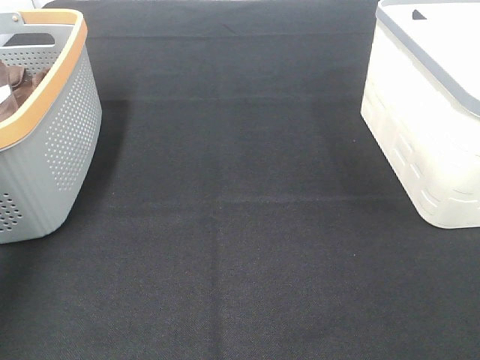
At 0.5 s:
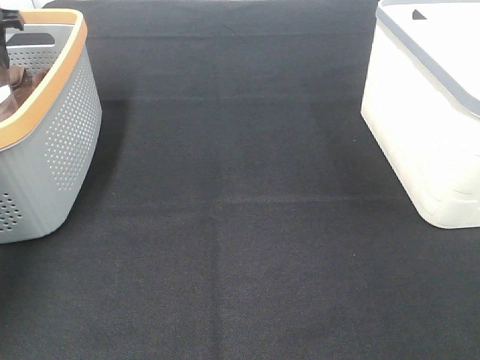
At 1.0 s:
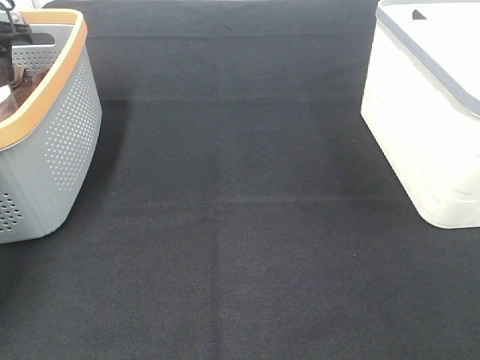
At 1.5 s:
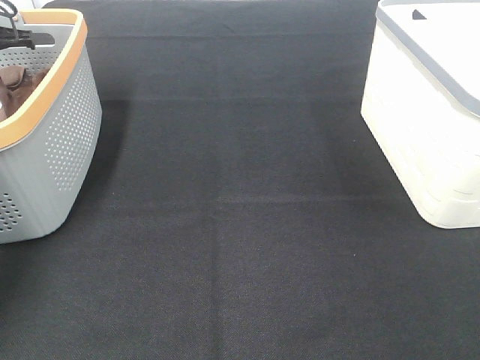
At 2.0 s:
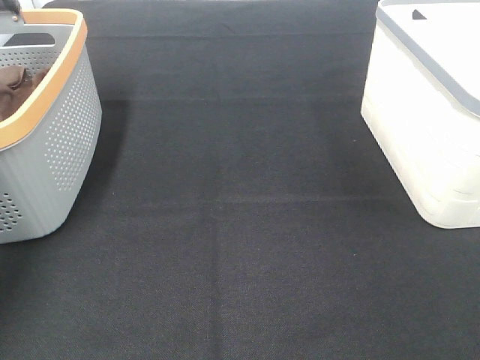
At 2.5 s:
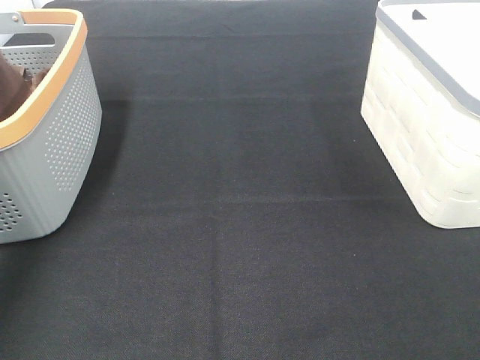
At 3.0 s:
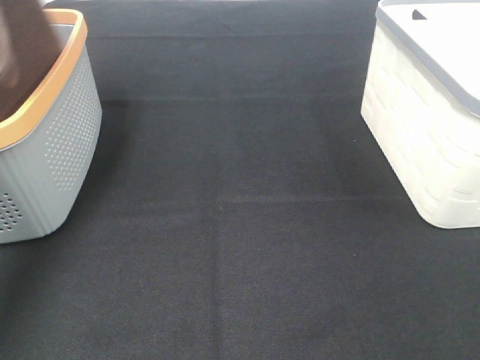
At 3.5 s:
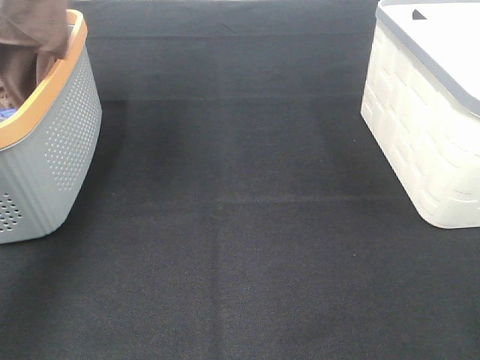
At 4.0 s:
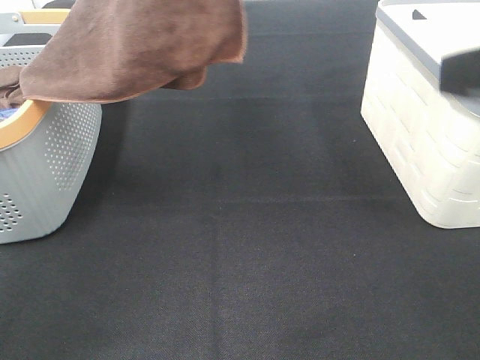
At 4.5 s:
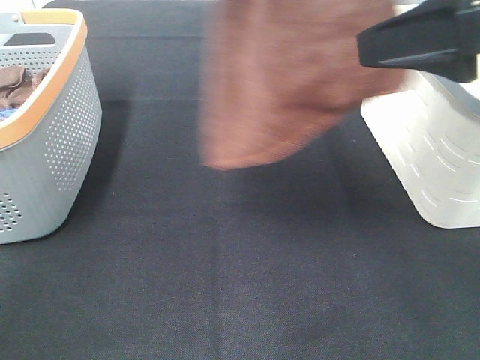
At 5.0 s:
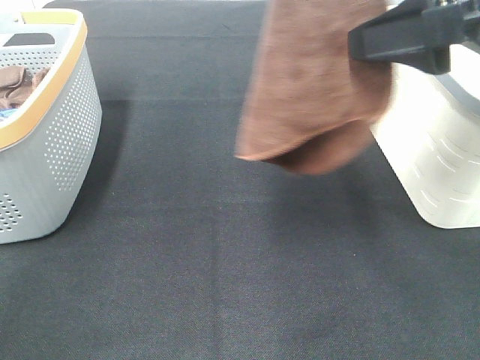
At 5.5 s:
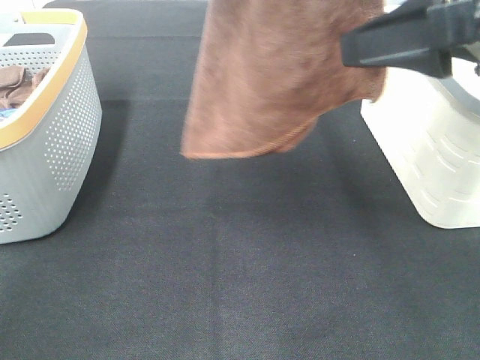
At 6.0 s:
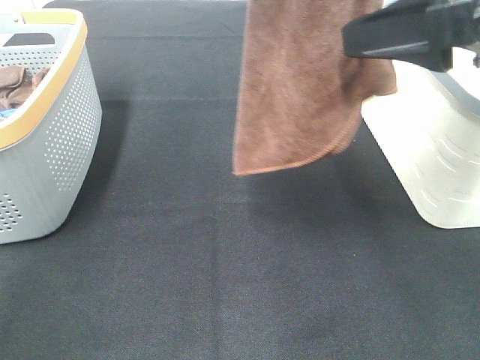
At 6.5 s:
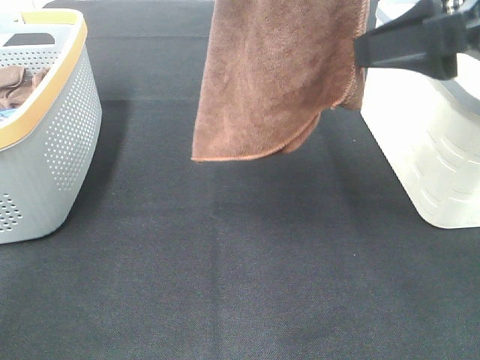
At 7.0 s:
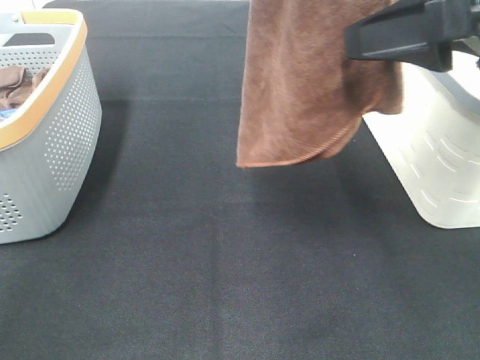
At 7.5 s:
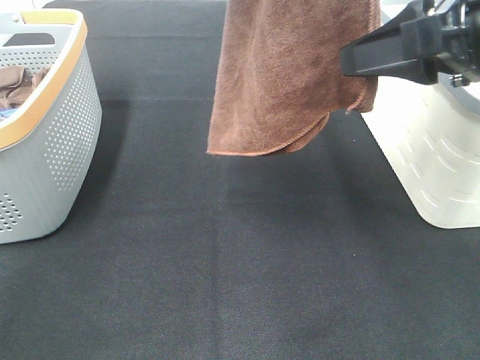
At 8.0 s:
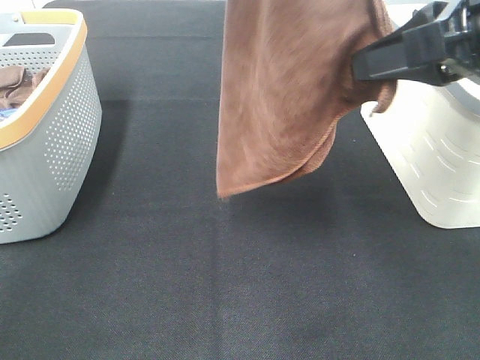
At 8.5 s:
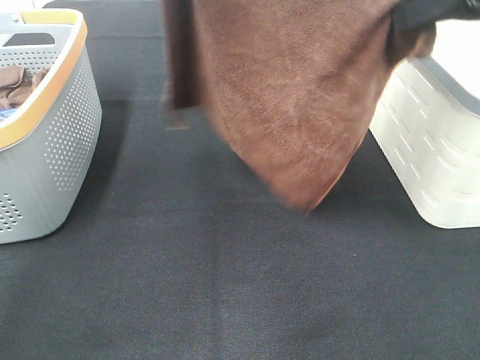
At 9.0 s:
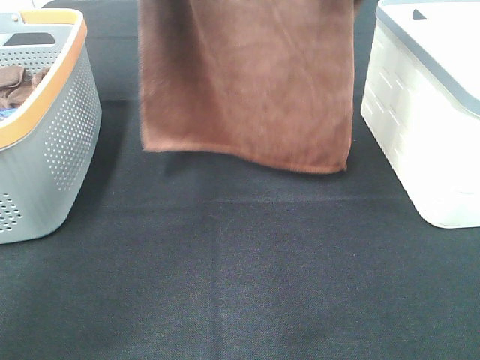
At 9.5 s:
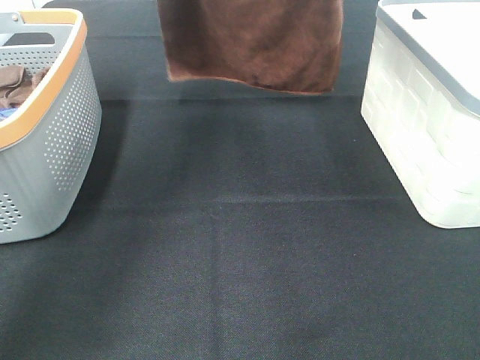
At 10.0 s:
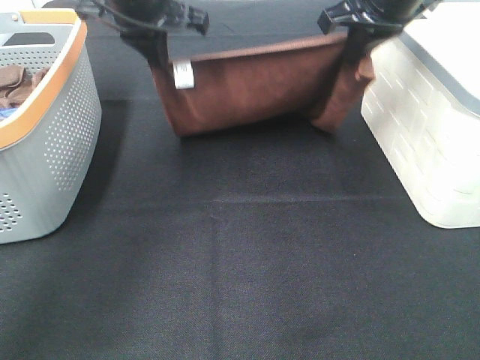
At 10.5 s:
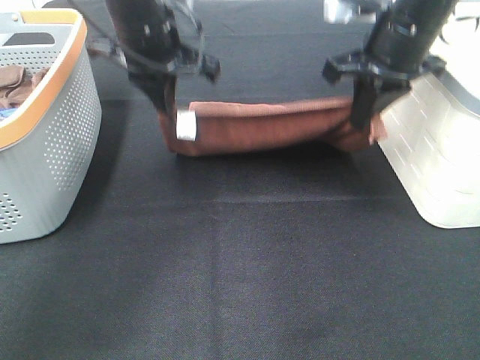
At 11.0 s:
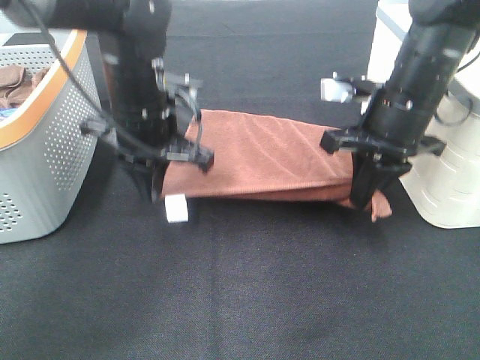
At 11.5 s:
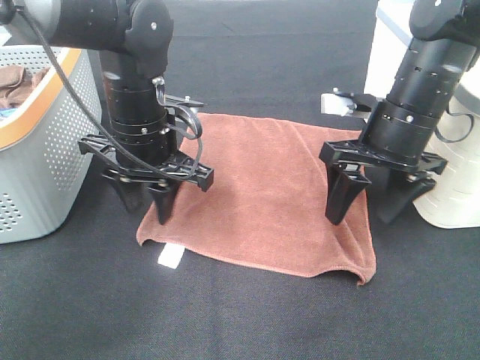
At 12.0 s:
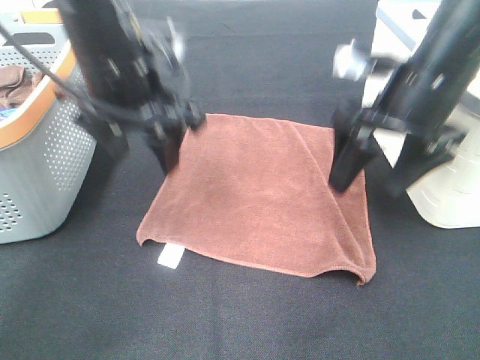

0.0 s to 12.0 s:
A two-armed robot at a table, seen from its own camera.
Task of the whole recording: Remove the towel and place it.
Step, 3.0 to 5.5 s: Right hand: grab a corner of the brown towel and straighten it.
Step, 6.0 to 8.0 s: Left hand: spread the brown towel flat on the table.
Step, 6.0 to 8.0 s: Right hand: spread the brown towel flat on the table.
0.0 to 2.0 s: The left gripper goes about 5 cm forward, reaches roughly 10 cm downward, then returns, and closes its fingers.
2.0 to 4.0 s: The left gripper moves upward, to the right and backward, some 35 cm. Meanwhile the right gripper travels forward, upward and to the left by roughly 15 cm.
4.0 to 6.0 s: The right gripper goes roughly 10 cm forward. Meanwhile the left gripper shifts roughly 5 cm to the right.
6.0 to 8.0 s: The right gripper closes.
8.0 to 10.0 s: The left gripper is displaced downward and forward by approximately 30 cm; the right gripper is displaced forward by about 20 cm.
10.0 to 12.0 s: The right gripper is displaced backward and downward by approximately 10 cm, and opens. The left gripper moves backward, approximately 10 cm, and opens.

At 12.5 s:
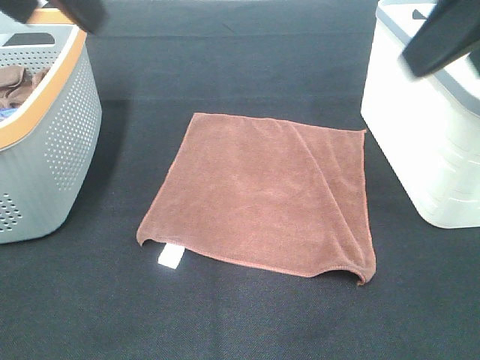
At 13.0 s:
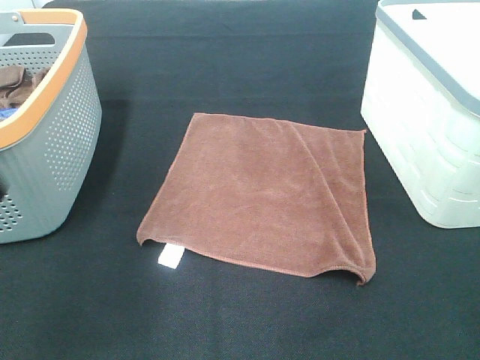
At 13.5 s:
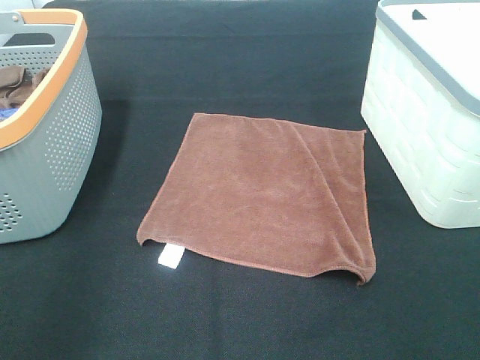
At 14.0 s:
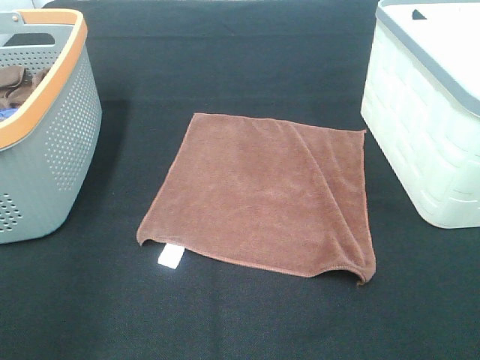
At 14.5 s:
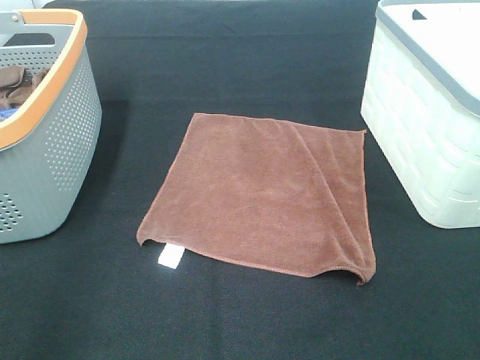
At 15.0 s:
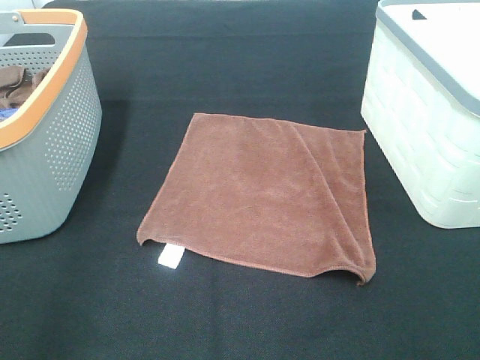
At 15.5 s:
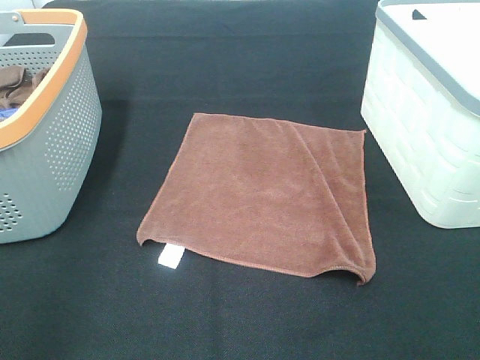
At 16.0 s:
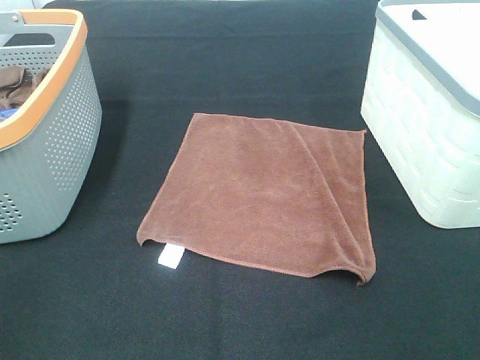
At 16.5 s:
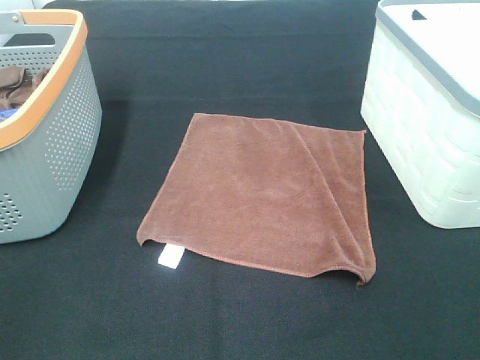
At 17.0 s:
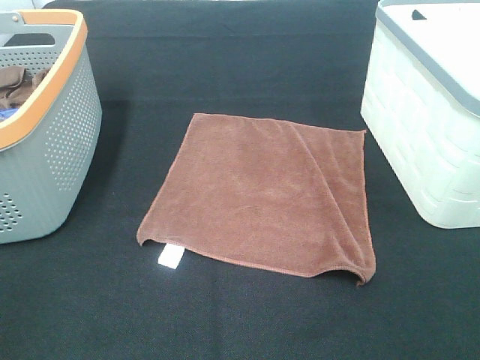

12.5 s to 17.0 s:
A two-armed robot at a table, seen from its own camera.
Task of the whole recording: Remove the towel and place it.
12.5 to 14.5 s: The right gripper goes approximately 20 cm backward, downward and to the right. Meanwhile the left gripper shifts about 25 cm backward, downward and to the left.

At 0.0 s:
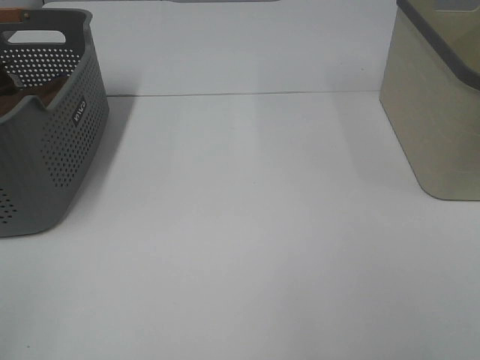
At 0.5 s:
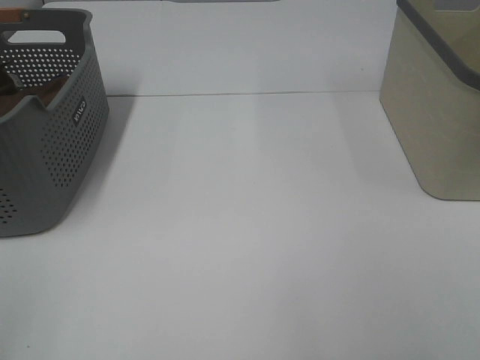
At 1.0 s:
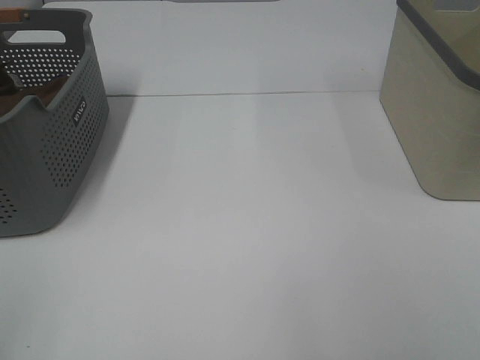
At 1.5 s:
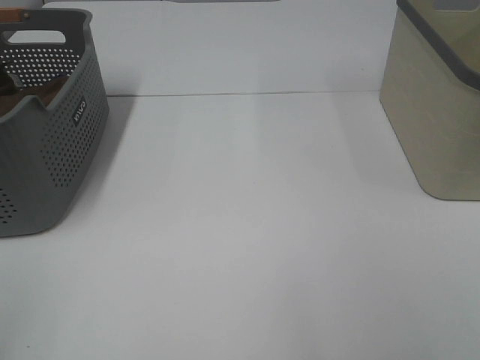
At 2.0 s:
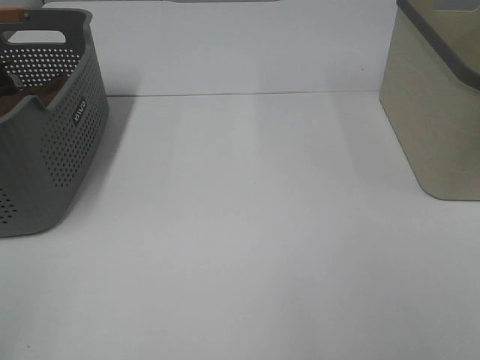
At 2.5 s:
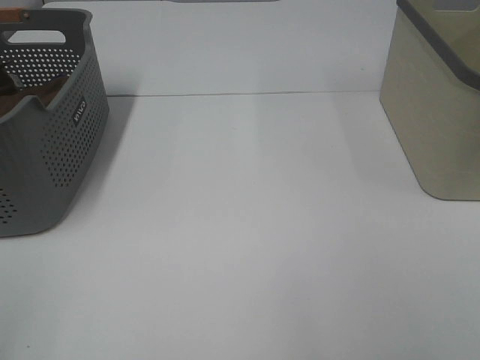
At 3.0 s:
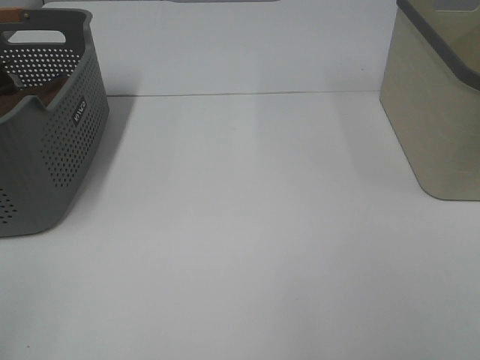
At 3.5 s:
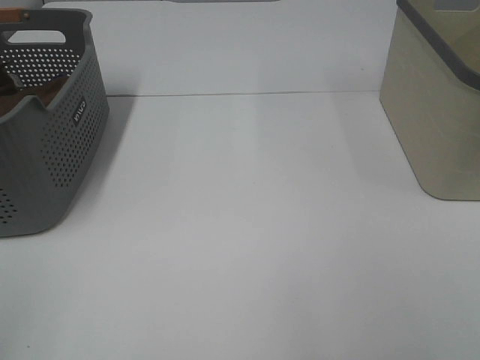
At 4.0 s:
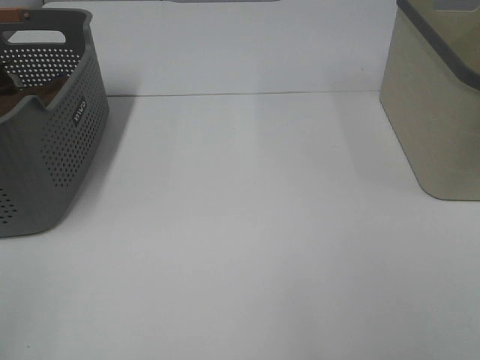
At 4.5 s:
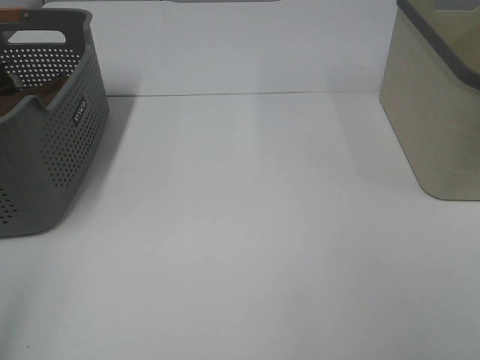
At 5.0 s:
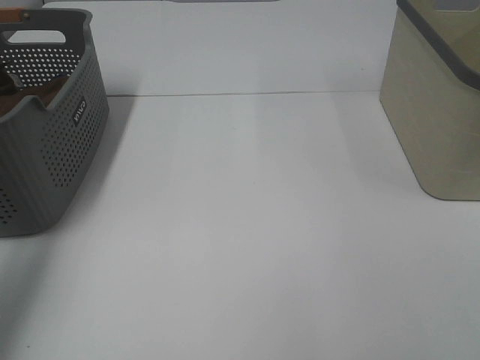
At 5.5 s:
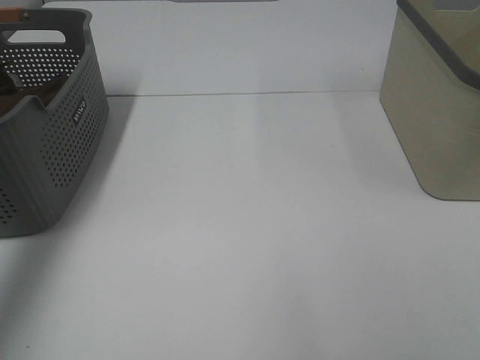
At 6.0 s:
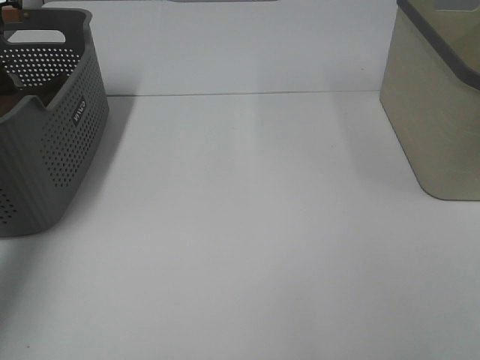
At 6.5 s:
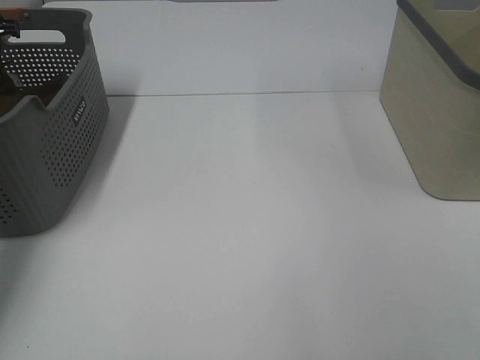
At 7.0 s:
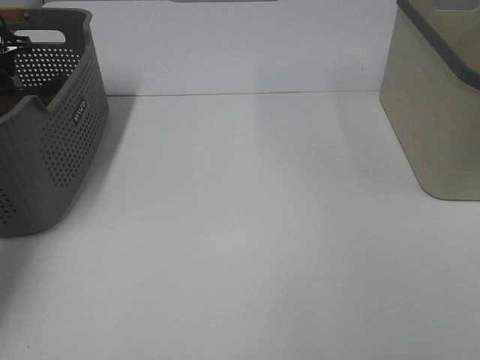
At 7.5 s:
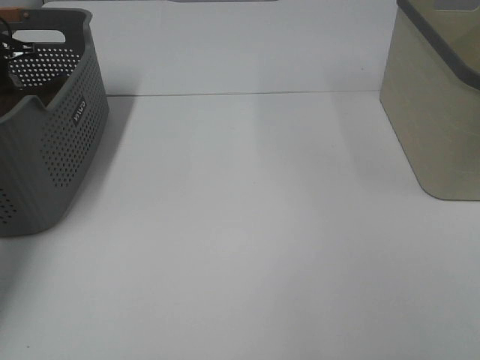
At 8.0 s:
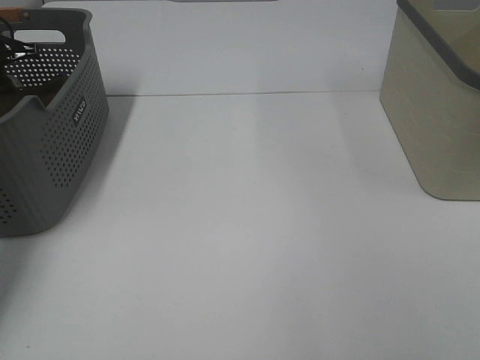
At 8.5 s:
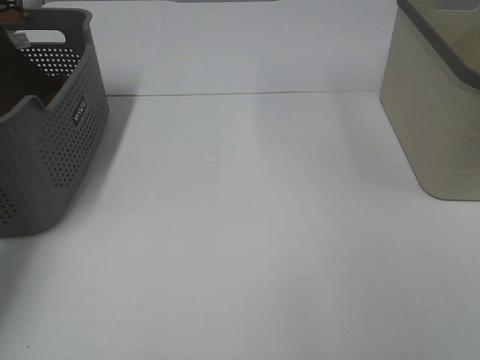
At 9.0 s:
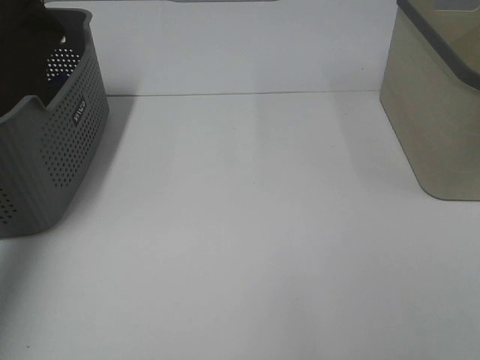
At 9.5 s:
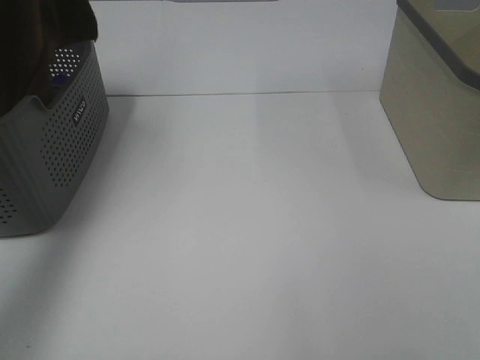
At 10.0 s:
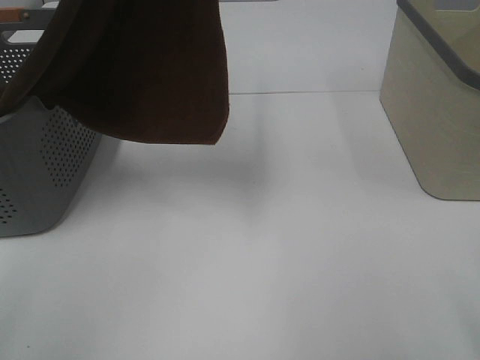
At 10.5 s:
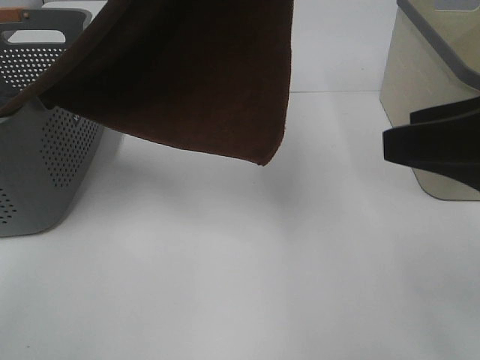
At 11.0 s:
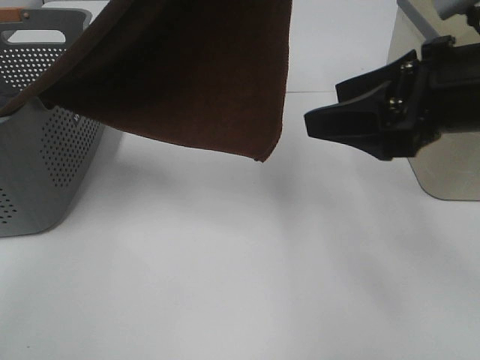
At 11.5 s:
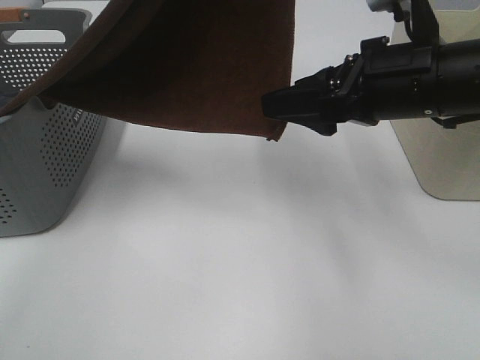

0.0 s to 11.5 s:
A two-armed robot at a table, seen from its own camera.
Task of the whole recording: Remove the towel and place it.
0.0 to 4.0 s: The two grippers keep their place.
4.0 to 6.0 s: The left gripper shifts about 50 cm forward.
7.5 to 9.5 s: The left gripper shifts about 35 cm upward, backward and to the right.
9.5 to 11.5 s: The left gripper goes roughly 20 cm to the right, while the right gripper heads forward and to the left, covering about 30 cm.
